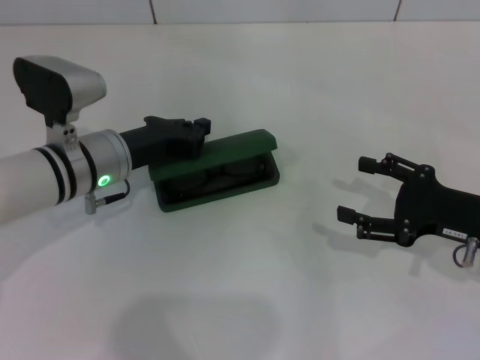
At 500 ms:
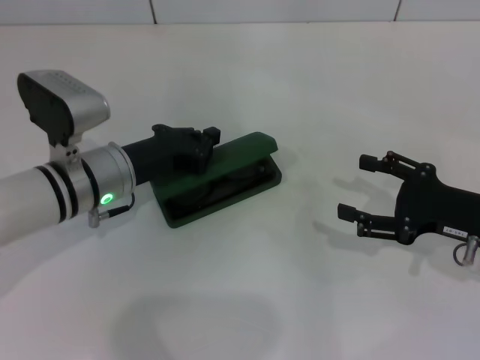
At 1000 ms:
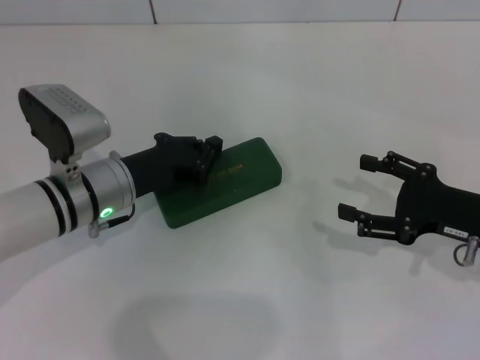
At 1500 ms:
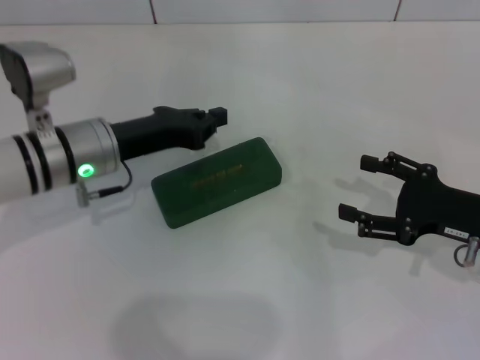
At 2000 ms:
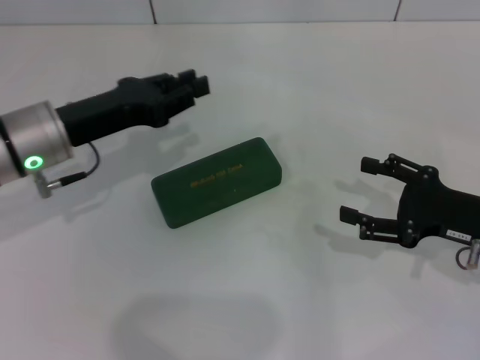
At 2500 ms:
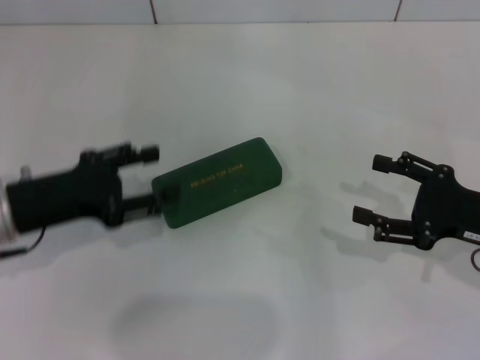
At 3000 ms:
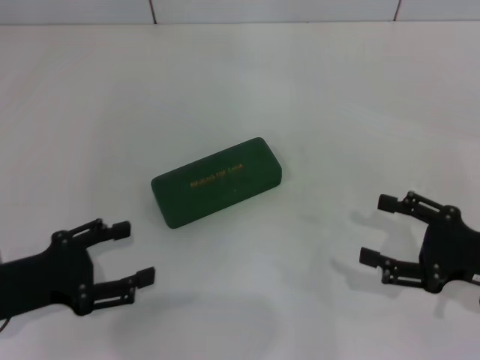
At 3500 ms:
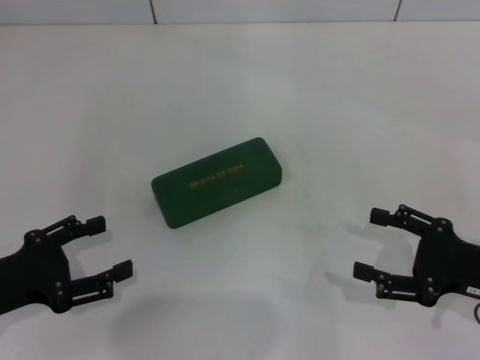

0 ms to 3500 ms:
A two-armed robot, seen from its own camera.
0 ms to 2000 ms: The left gripper shifts by some 5 cm.
2000 ms to 3500 ms: The left gripper is displaced backward and to the left by roughly 15 cm, and opens up.
